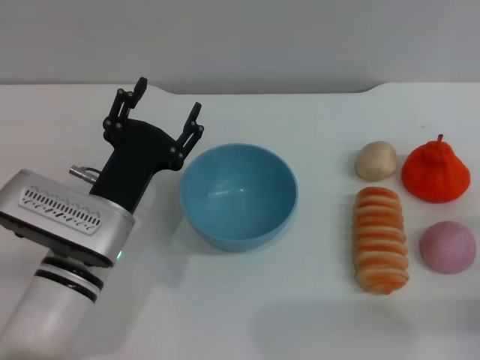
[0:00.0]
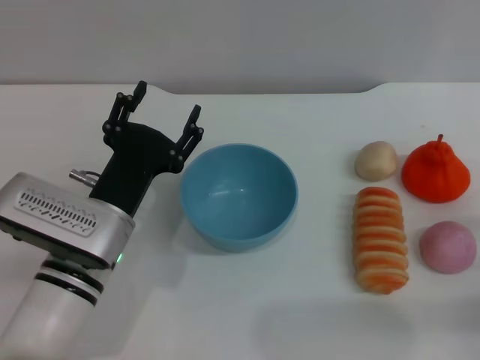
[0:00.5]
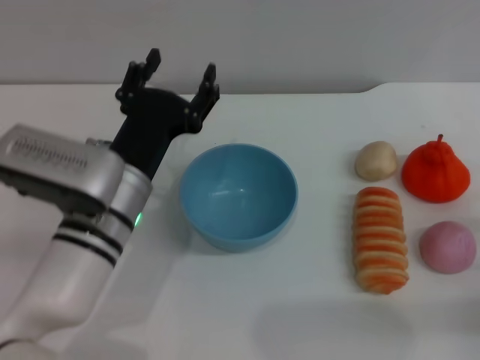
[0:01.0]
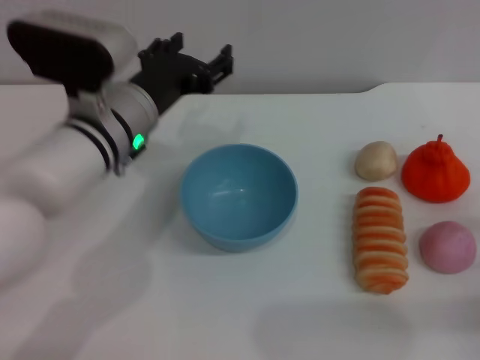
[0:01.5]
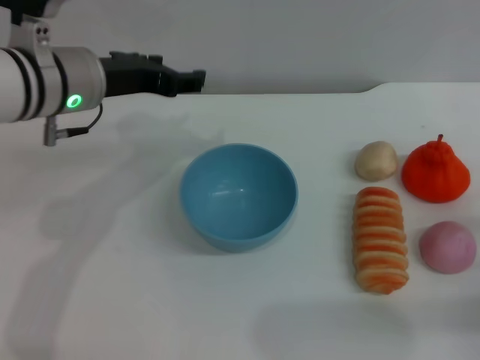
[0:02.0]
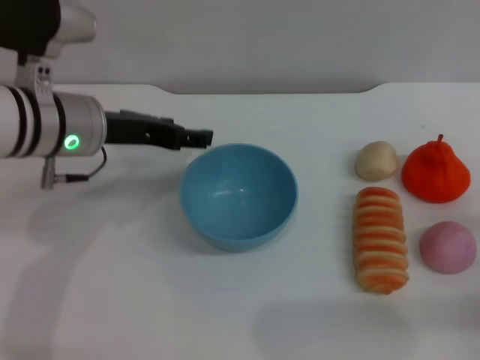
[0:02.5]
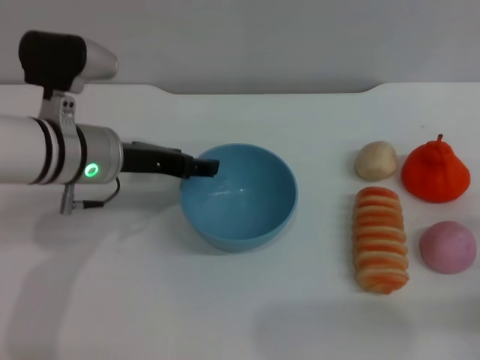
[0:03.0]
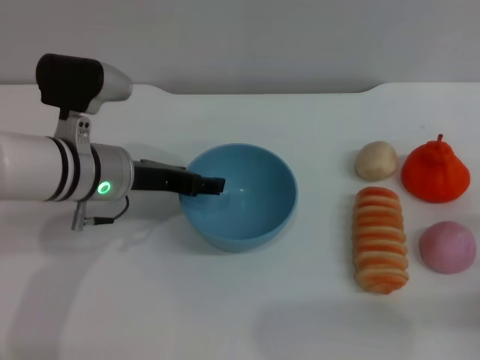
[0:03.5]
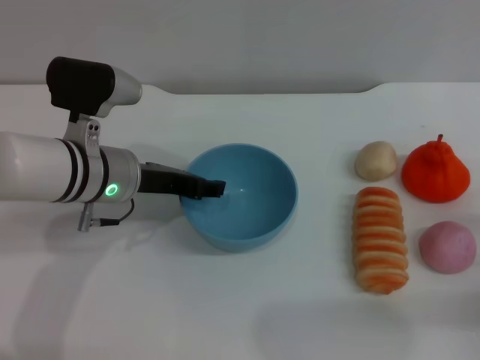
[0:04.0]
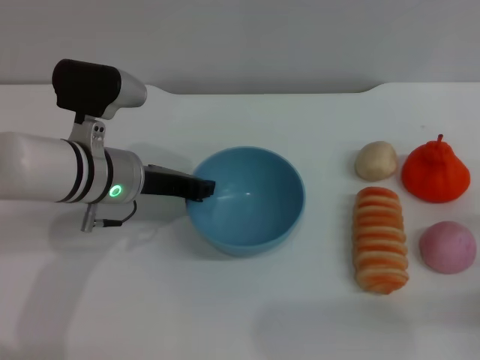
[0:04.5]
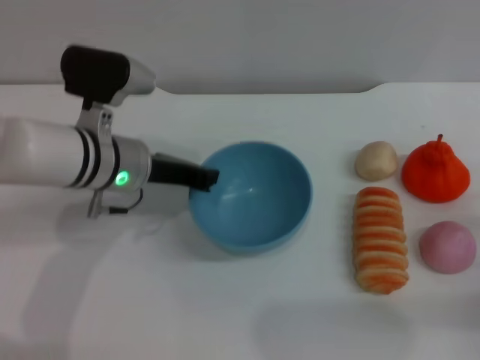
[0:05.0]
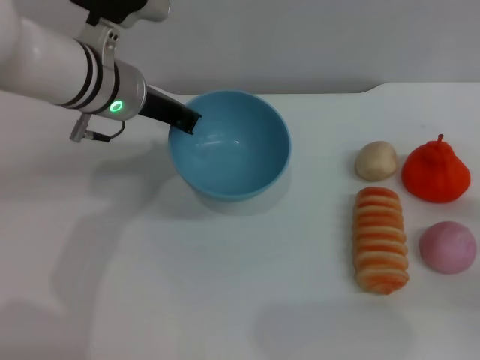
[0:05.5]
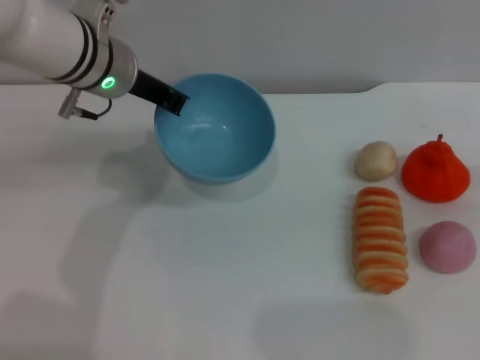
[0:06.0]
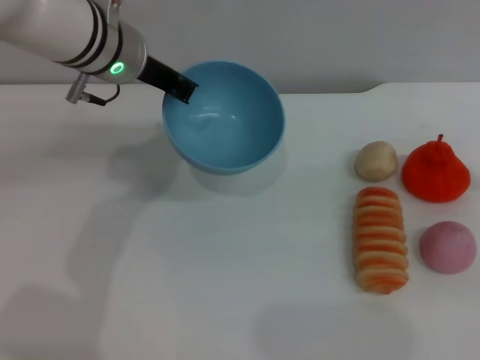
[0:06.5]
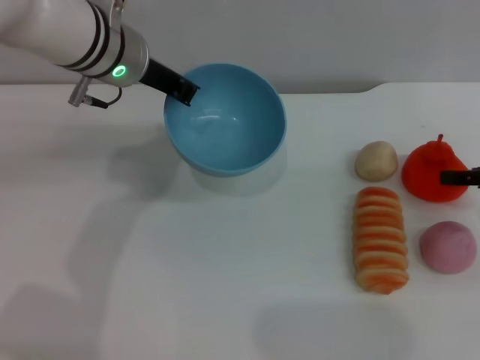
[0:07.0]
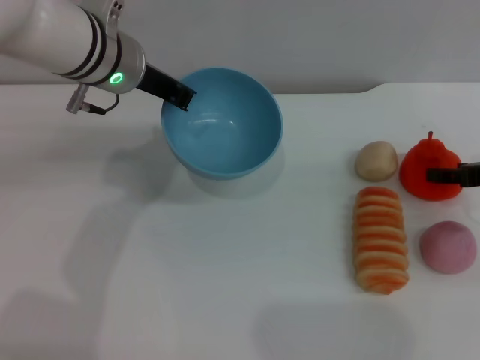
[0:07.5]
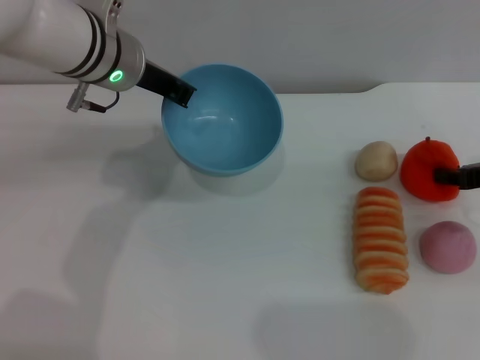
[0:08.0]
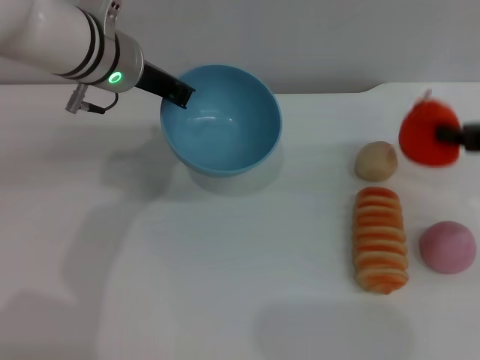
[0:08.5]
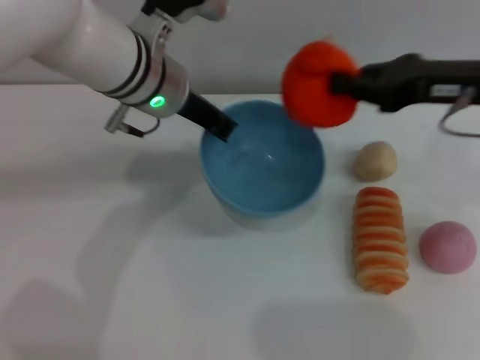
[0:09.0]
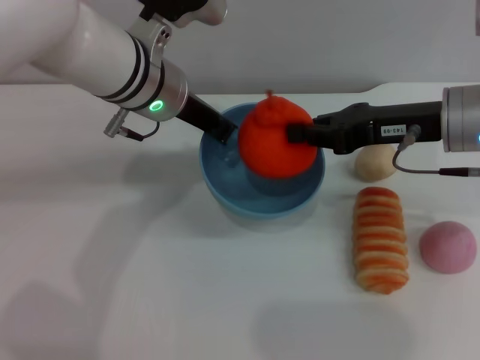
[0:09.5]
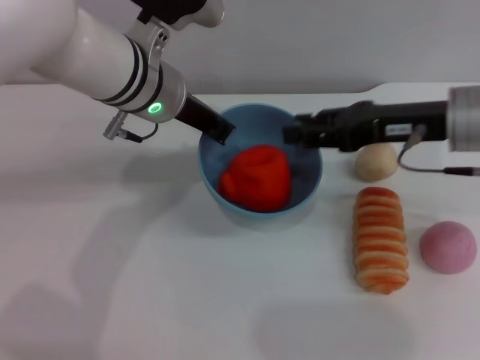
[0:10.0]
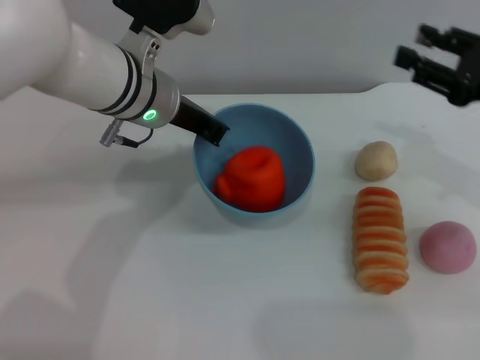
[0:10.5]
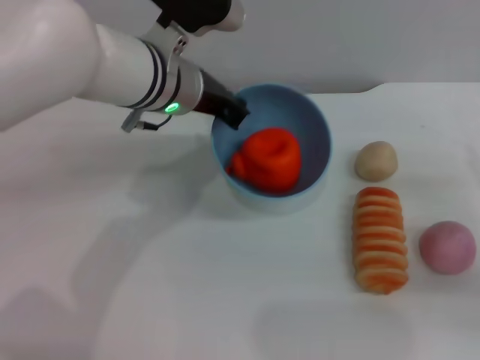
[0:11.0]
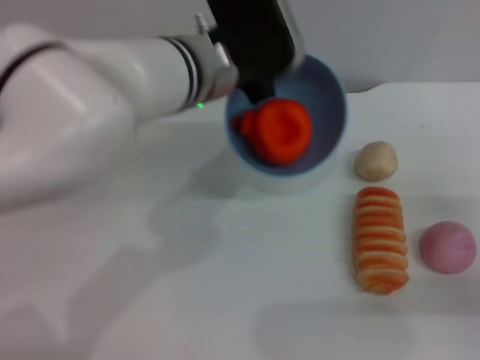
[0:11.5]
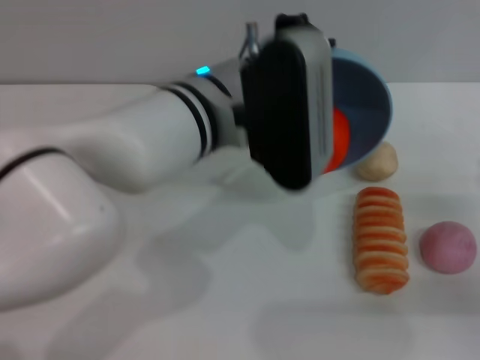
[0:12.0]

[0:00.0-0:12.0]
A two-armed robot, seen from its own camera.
Task of the whole recording: put the orange into the blue bowl and pour it out repeatedly.
Step, 0.0 to 5.5 s: Pick up the bowl with the left gripper.
Step, 6.0 to 8.5 s: Pick up the orange with the right gripper.
Step, 9.0 to 10.0 s: Place the orange into the bowl.
0.0 to 2.0 s: The left gripper is displaced upward and forward by some 15 cm.
2.0 to 4.0 s: The left gripper heads downward, covering roughly 10 cm.
4.0 to 6.0 s: The left gripper moves upward and forward, approximately 10 cm, and closes; the right gripper heads upward, to the right and forward, covering about 15 cm.
6.0 to 8.0 s: The right gripper heads to the left, covering approximately 10 cm, and closes.
8.0 to 10.0 s: The right gripper goes roughly 15 cm to the left and upward.
10.0 to 12.0 s: The left gripper is displaced backward and to the right by approximately 10 cm; the right gripper is displaced to the right, downward and backward by about 20 cm, and opens its fingers.

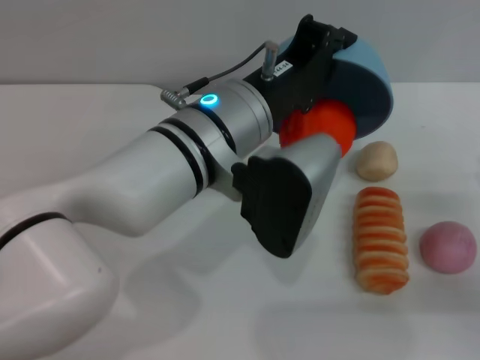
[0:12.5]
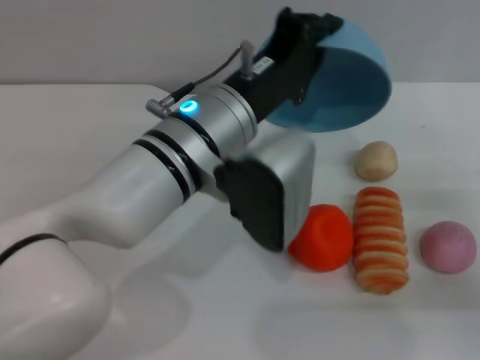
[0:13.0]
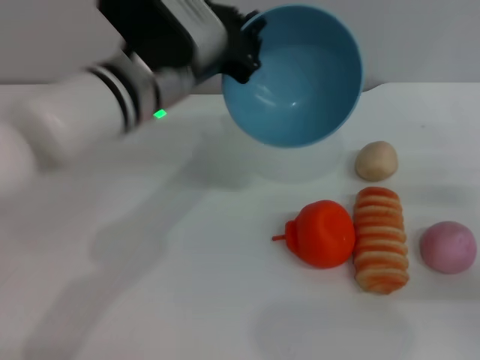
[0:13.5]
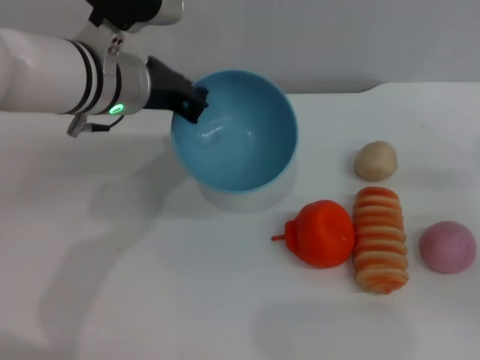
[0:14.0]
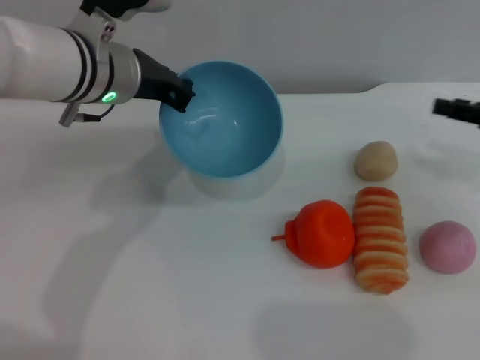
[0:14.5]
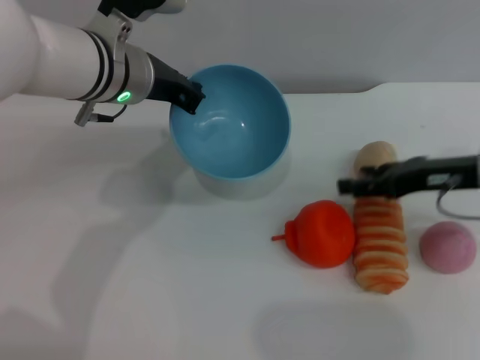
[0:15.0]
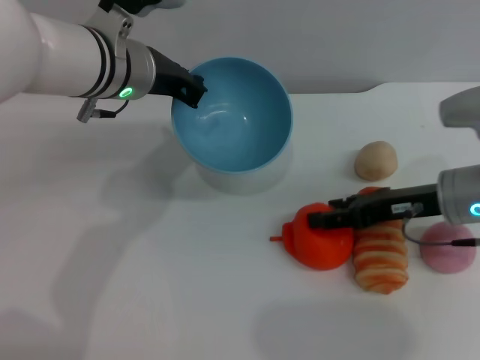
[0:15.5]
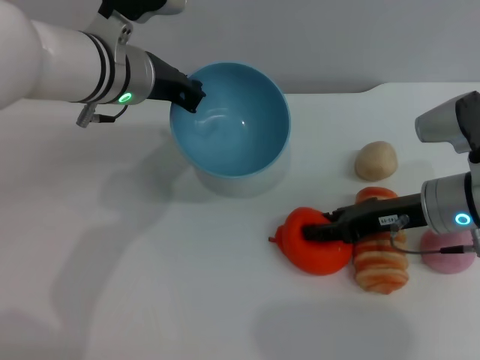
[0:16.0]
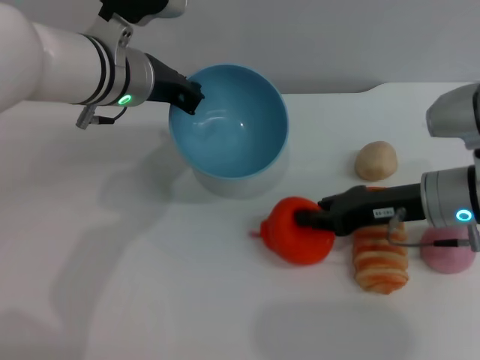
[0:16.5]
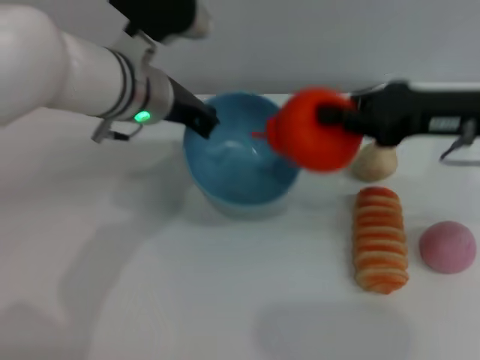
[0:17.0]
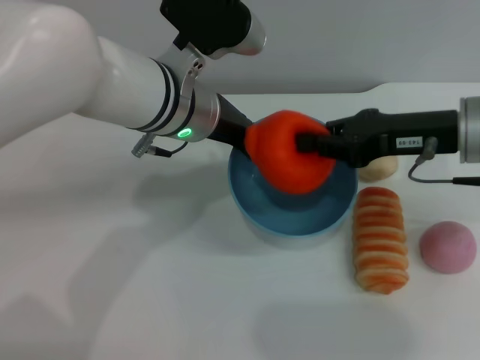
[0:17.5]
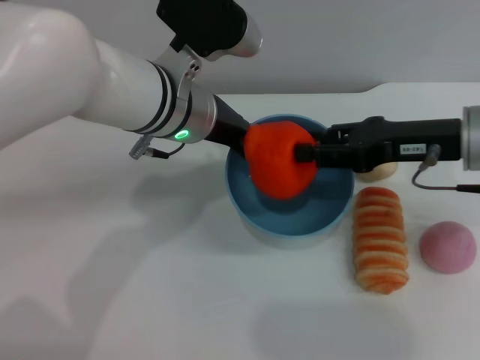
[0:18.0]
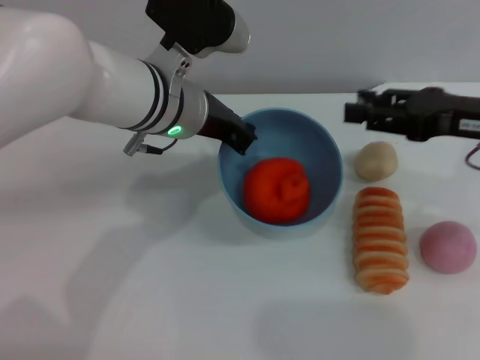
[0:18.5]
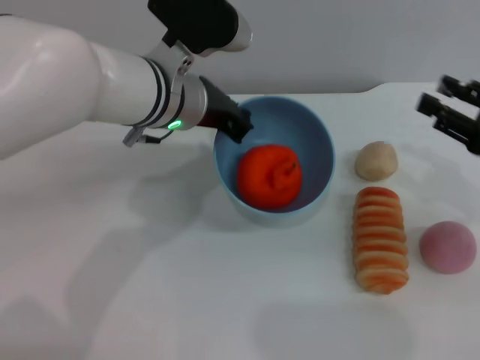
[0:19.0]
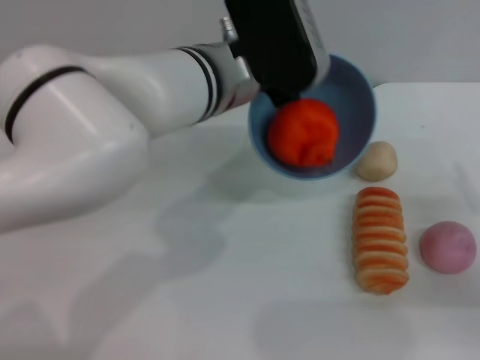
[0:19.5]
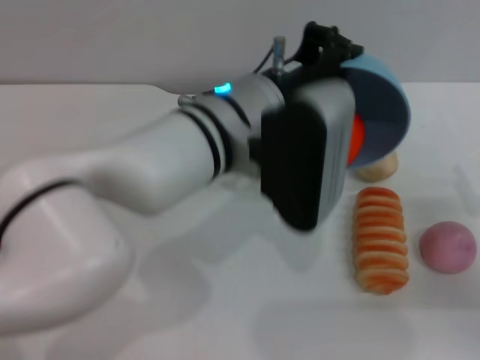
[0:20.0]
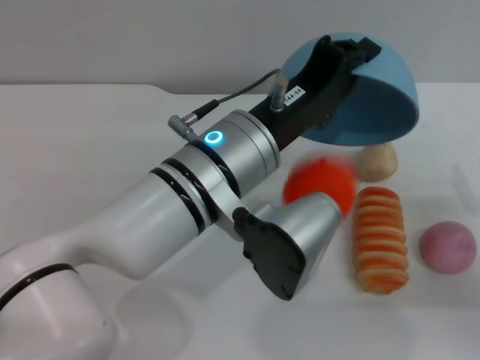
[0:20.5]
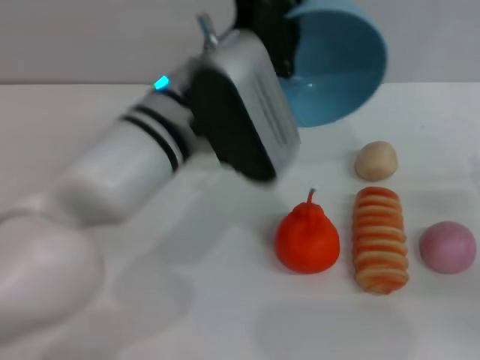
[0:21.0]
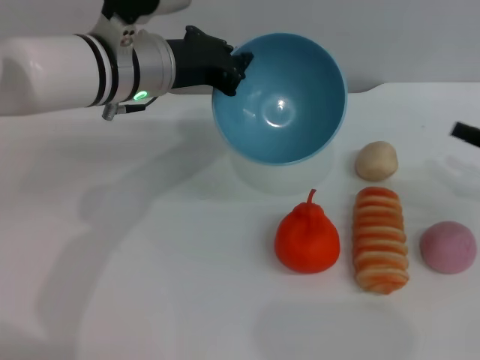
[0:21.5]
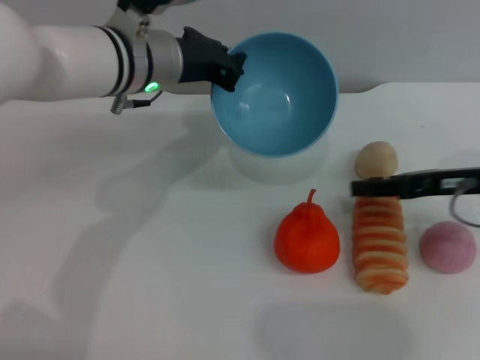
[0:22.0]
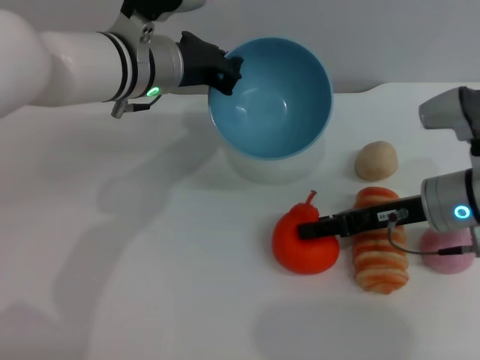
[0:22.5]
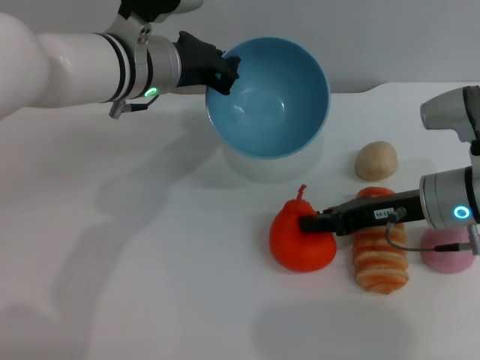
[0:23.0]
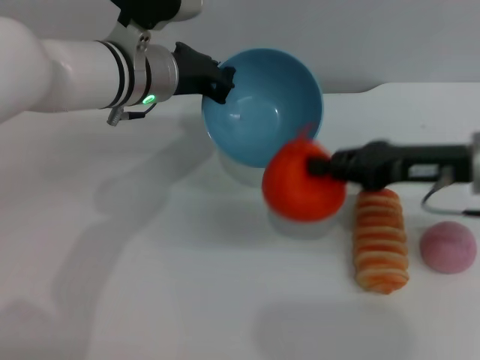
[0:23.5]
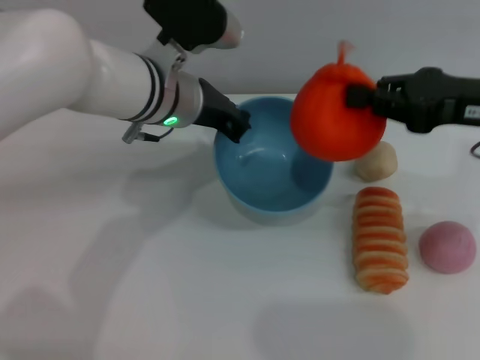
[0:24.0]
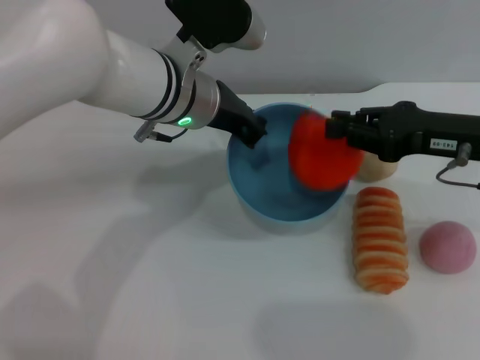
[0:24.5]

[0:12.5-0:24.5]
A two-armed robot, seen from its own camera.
Task of the whole recording: put the orange into the blue bowl and pour it out repeatedly.
Step, 13.0 to 16.5 s: Pick up the orange with the right gripper.
Step, 17.0 to 18.0 s: Place the orange into the bowl.
Step, 18.5 to 20.5 s: Pour the orange out of the bowl.
Step, 21.0 to 23.0 s: Pick up the orange with the right gripper.
12.5 to 14.5 s: The left gripper heads to the left and forward, covering approximately 15 cm; the right gripper shifts about 15 cm forward and upward.
14.5 to 16.5 s: The right gripper heads to the left and downward, covering some 15 cm, and closes up.
16.5 to 18.5 s: The left gripper shifts by some 5 cm; the right gripper shifts some 10 cm upward and to the right, and opens.
18.5 to 20.5 s: The right gripper is displaced downward, backward and to the right by approximately 15 cm, while the left gripper shifts approximately 10 cm backward.
20.5 to 22.5 s: The left gripper is displaced forward and to the left by about 15 cm, while the right gripper moves to the left and forward, roughly 15 cm.
22.5 to 24.5 s: The right gripper is displaced upward by some 5 cm, and closes.

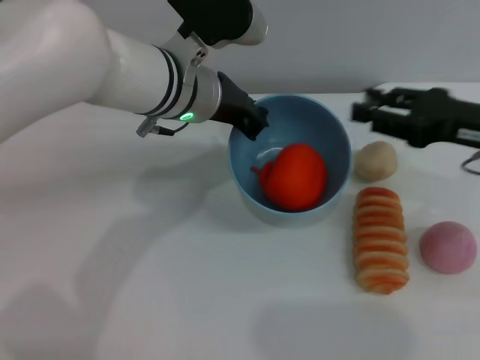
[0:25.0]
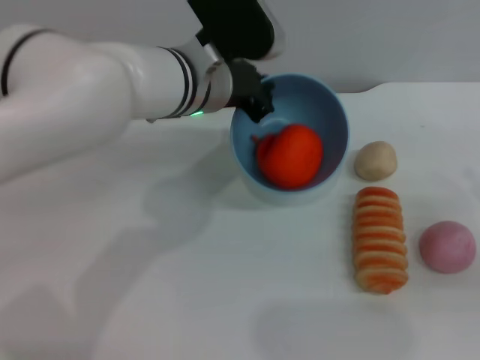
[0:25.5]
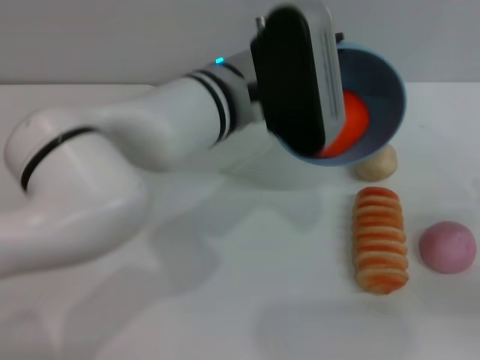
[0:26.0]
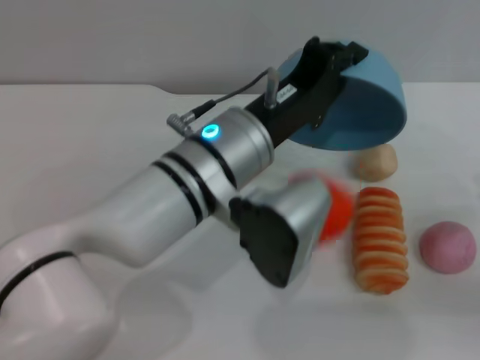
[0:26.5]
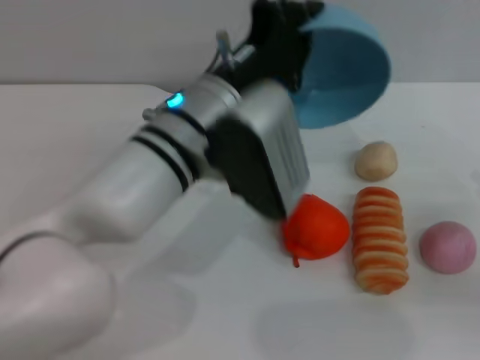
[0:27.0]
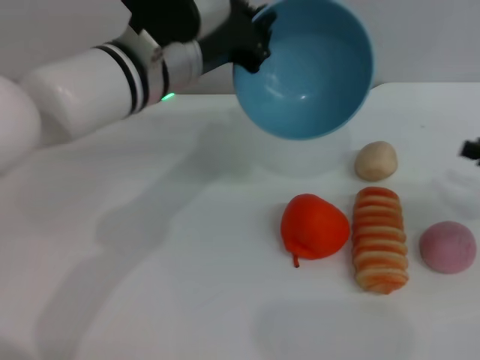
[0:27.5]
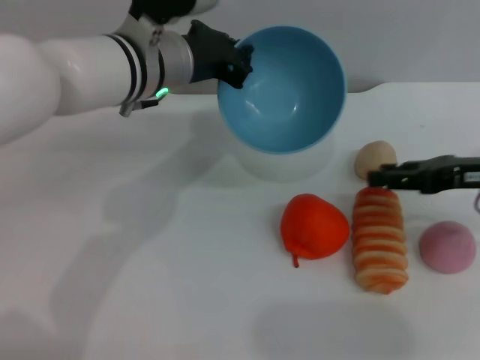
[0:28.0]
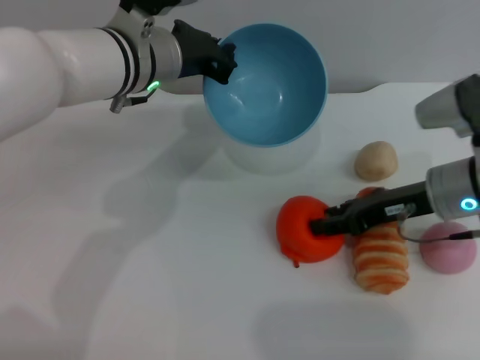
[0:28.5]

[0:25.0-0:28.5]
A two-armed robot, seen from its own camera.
Task of the whole recording: put the orange into the blue bowl and pour it out repeatedly.
Step, 25.0 to 26.5 s: Pour the orange out of the bowl.
25.0 to 27.0 s: The right gripper goes about 15 cm to the right, backward and downward; the left gripper shifts about 10 cm backward.
27.0 to 28.5 s: The left gripper is displaced forward and to the left by about 10 cm; the right gripper heads to the left and forward, covering some 20 cm.
